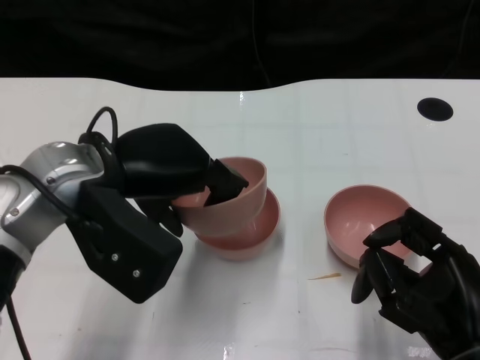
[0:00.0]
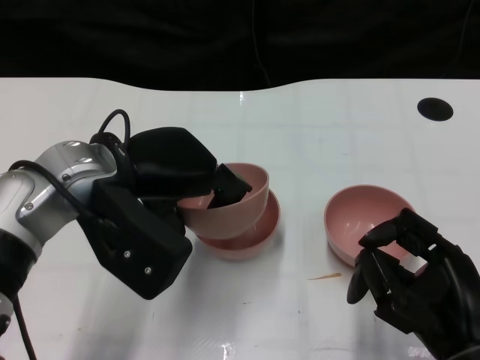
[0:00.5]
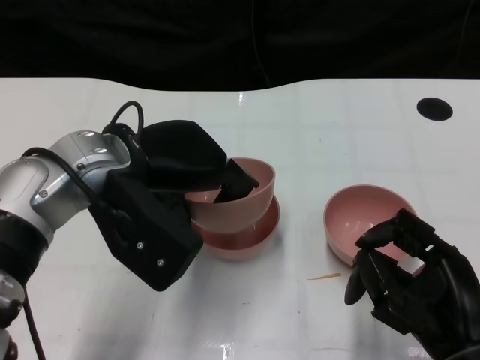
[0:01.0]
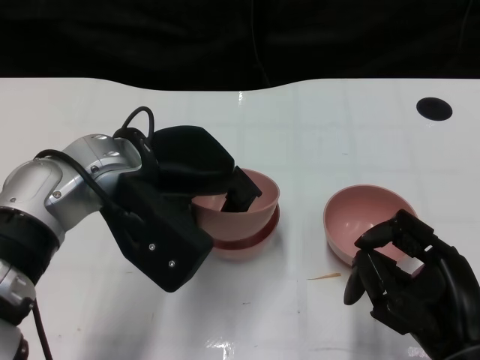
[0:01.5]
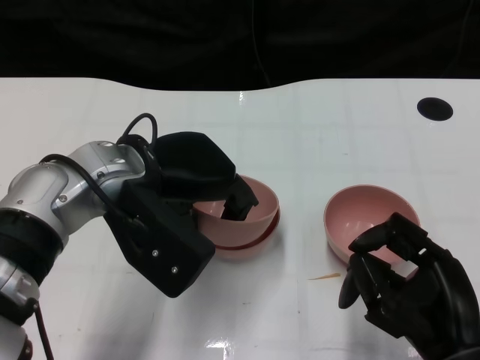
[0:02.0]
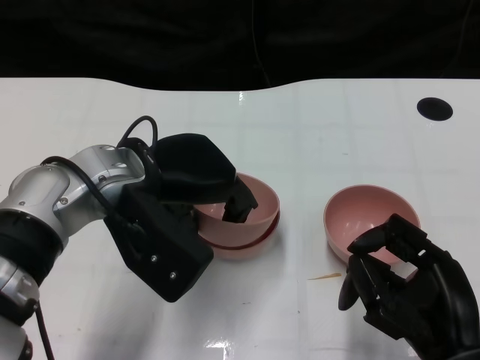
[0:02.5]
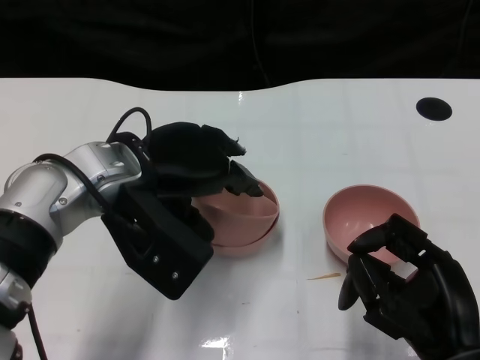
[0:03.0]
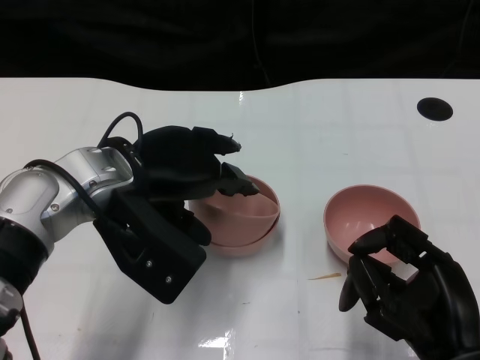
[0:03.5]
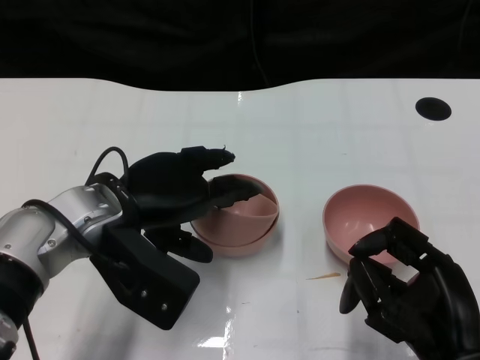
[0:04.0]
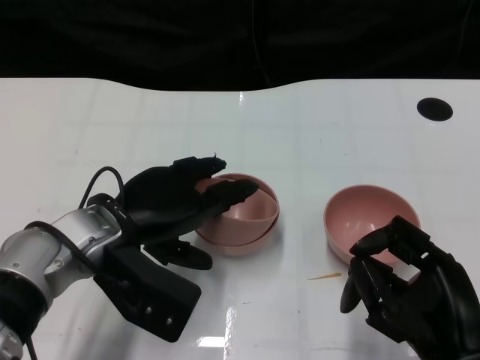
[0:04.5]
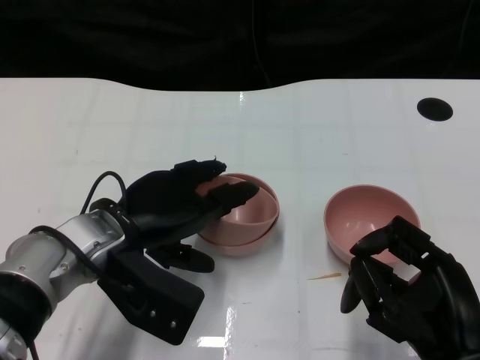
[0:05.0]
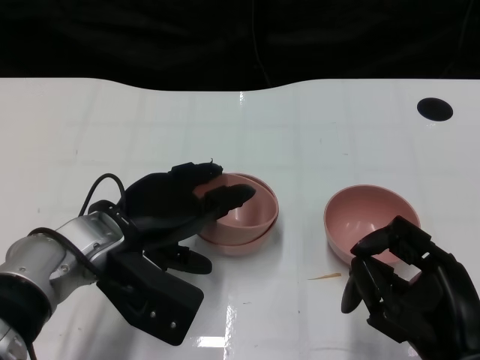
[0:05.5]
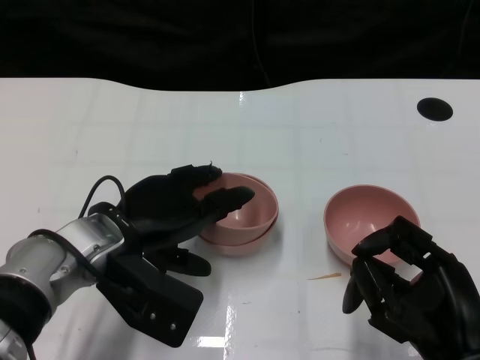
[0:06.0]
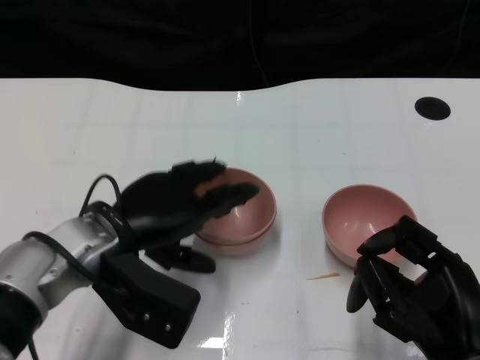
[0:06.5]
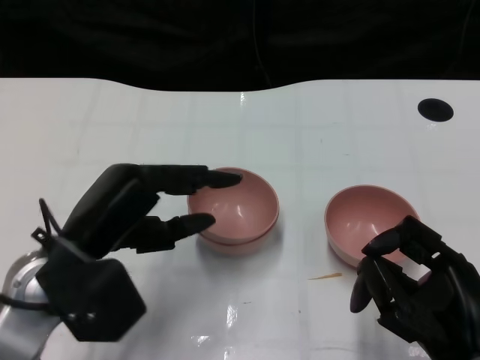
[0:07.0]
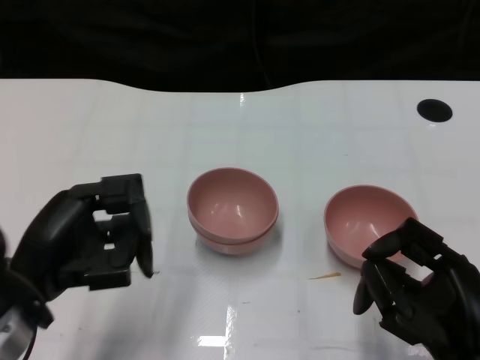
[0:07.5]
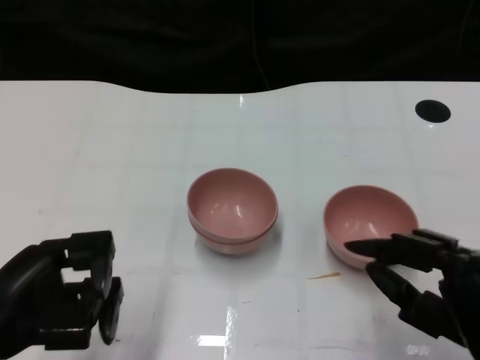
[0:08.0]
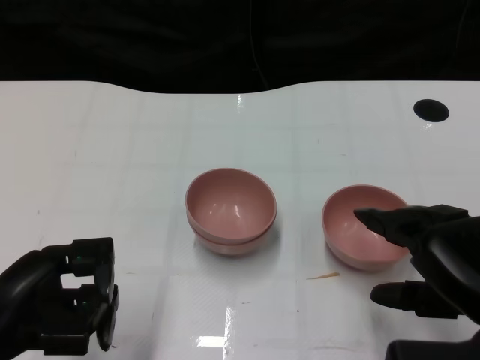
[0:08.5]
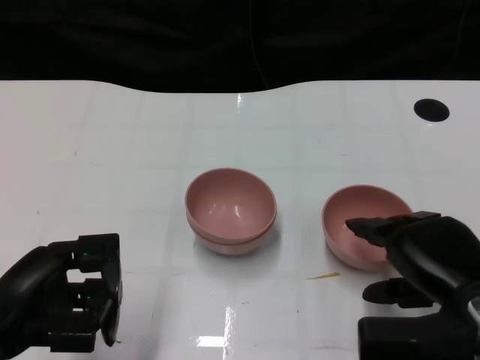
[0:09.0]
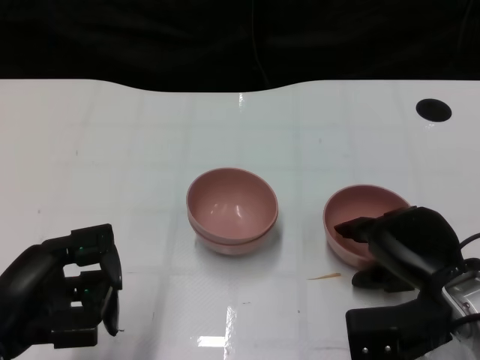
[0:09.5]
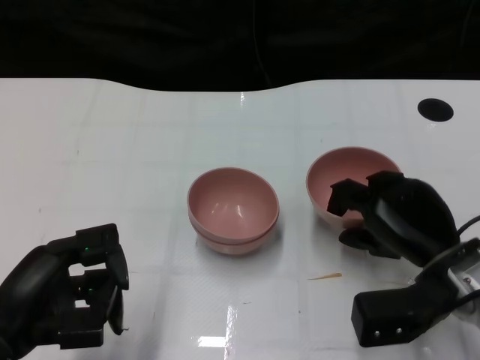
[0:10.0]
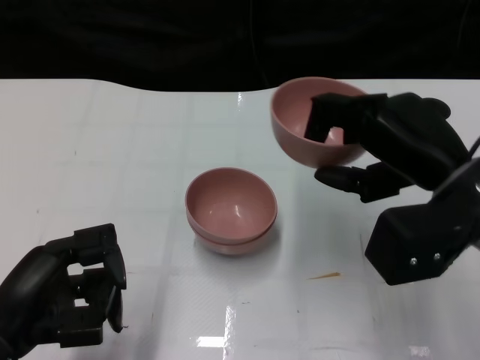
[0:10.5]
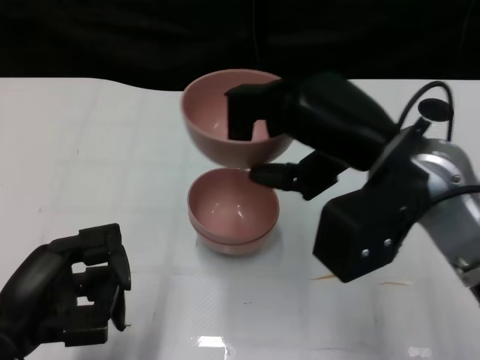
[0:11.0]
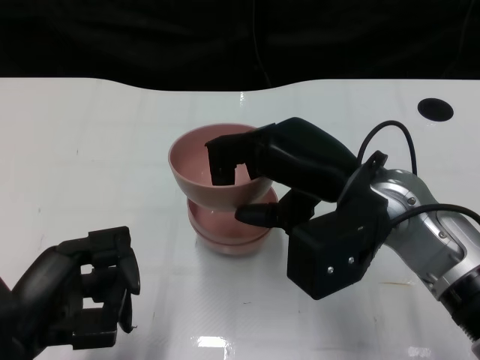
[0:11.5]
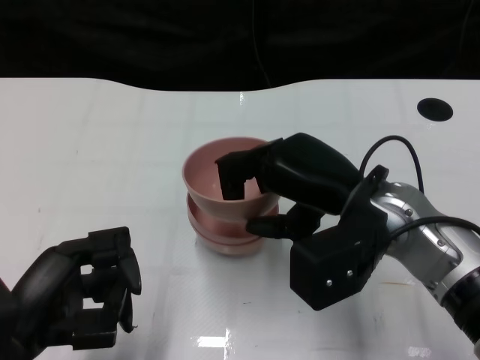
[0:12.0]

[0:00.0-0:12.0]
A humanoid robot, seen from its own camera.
Task of the whole recording: Pick up the bowl on one side of the table and place it on top of the middle bowl, then pick up the bowl on the other side of the table and place it on top of the middle bowls.
Step, 0:00.0 to 0:06.5: Place the bowl on the left onto the bowl in the middle with left gripper.
Step, 0:07.0 to 0:09.5: Grasp the bowl on the right with the right gripper.
0:02.0 to 0:04.0: There are only small adjustments of the hands.
0:04.0 to 0:06.0: There are only small adjustments of the hands.
0:06.0 to 0:08.0: The left hand goes approximately 15 cm backward and to the left.
0:08.0 to 0:10.0: The right hand moves forward, approximately 10 cm.
0:10.0 to 0:12.0: The right hand heads upward and to the left, covering approximately 10 cm.

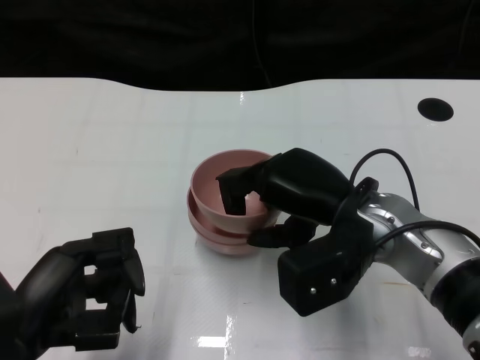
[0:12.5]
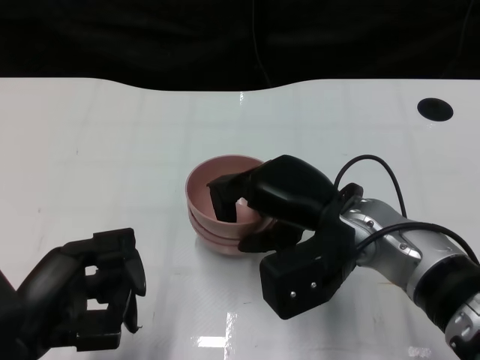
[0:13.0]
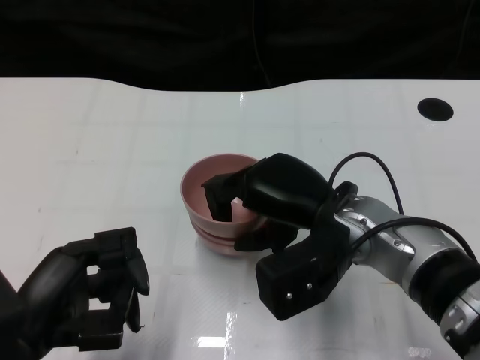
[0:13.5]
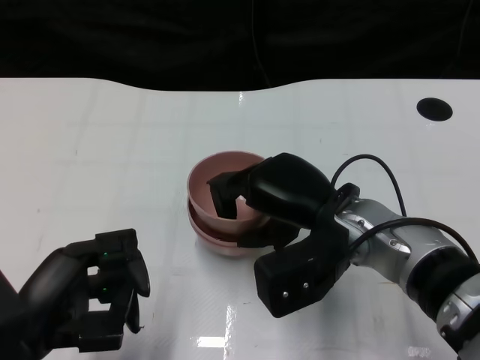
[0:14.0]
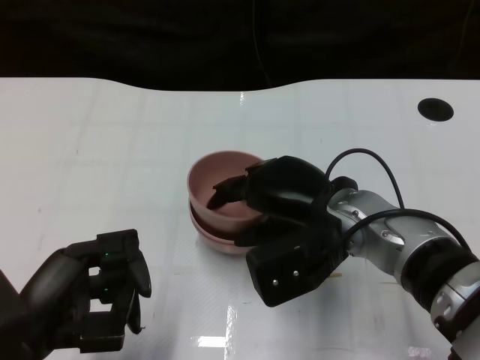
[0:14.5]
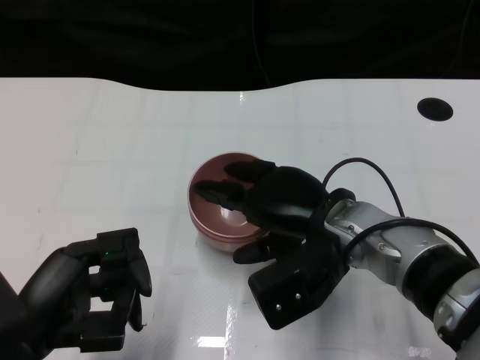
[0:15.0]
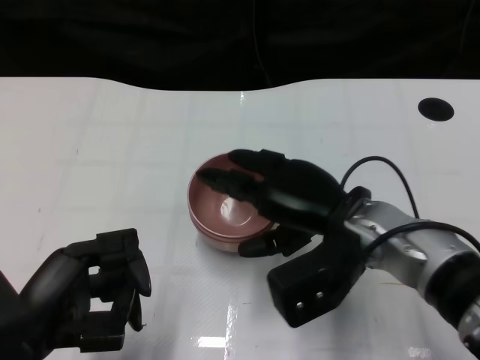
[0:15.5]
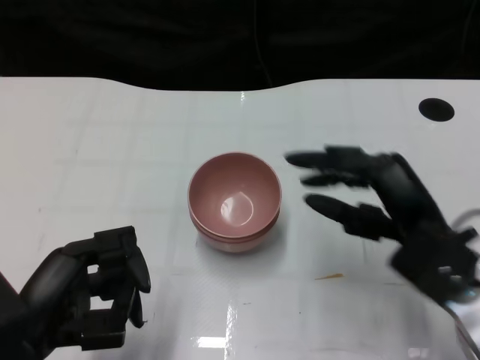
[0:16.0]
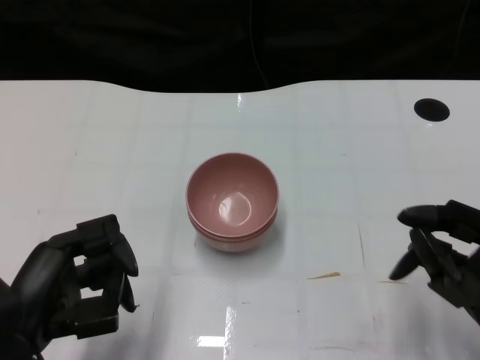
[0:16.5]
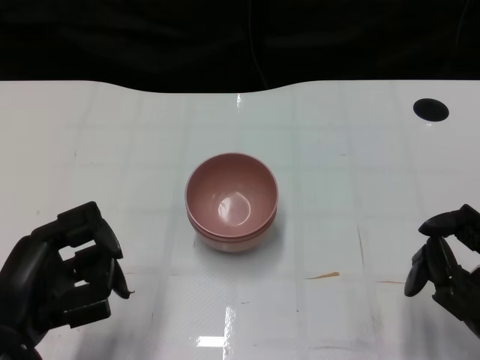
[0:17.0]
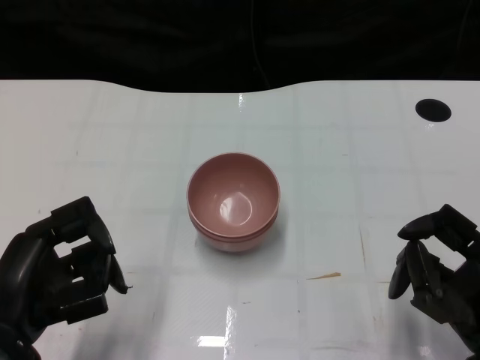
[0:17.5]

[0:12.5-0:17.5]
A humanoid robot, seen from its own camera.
Task of the whole recording: Pick up the bowl on one side of the table and place it on top of the middle bowl, then pick up the bowl on the other side of the table and place it on top of the middle bowls.
Step, 0:12.5 to 0:15.0: Place the bowl on the right onto the bowl in the middle with right gripper.
0:12.5 to 0:15.0: There are only small adjustments of the hands.
0:15.0 to 0:17.5: The right hand is displaced to the right and backward by approximately 20 cm.
